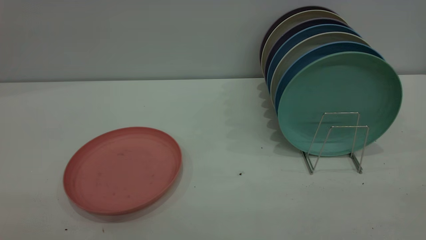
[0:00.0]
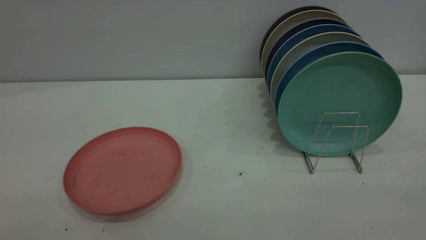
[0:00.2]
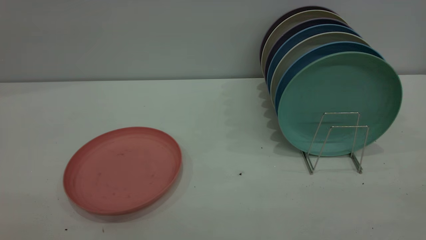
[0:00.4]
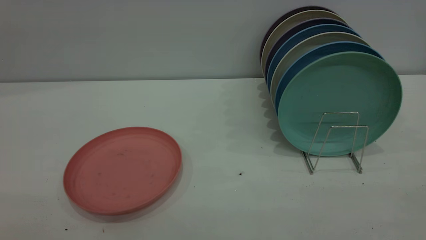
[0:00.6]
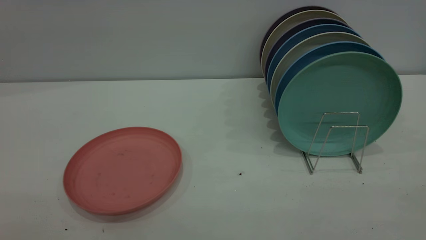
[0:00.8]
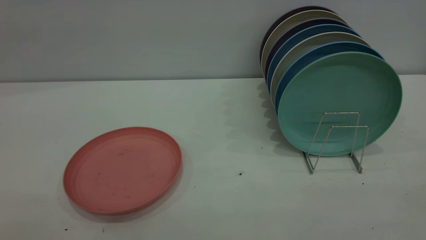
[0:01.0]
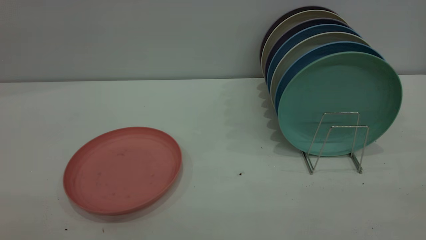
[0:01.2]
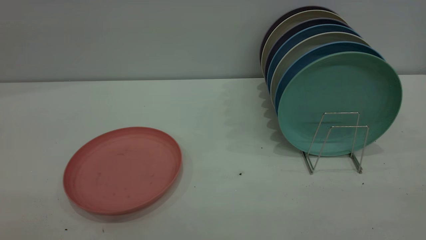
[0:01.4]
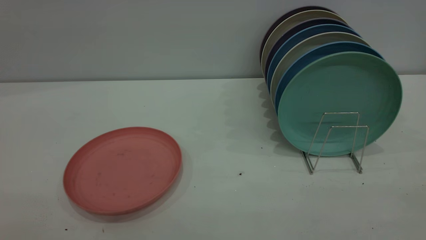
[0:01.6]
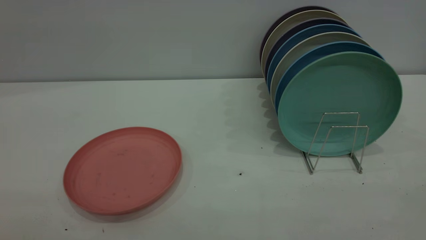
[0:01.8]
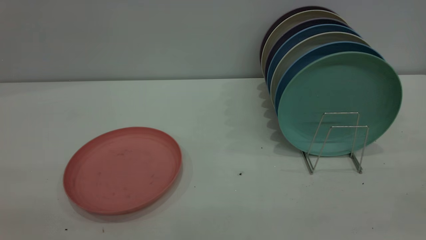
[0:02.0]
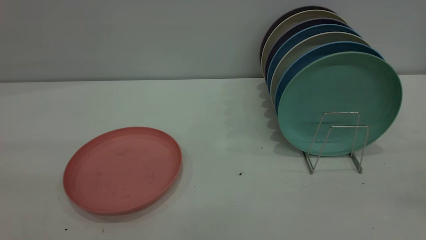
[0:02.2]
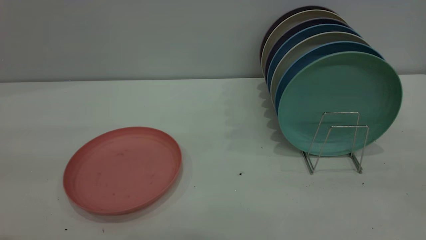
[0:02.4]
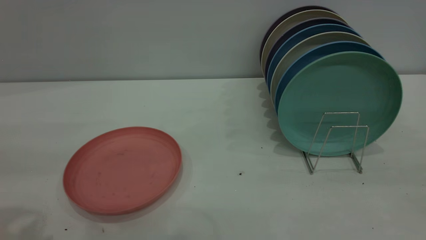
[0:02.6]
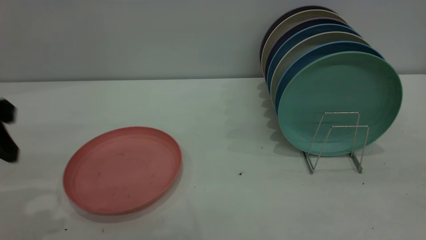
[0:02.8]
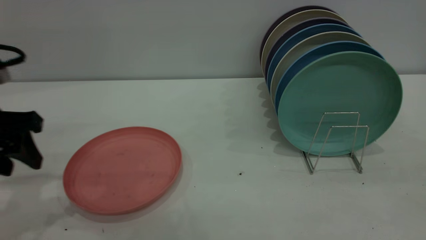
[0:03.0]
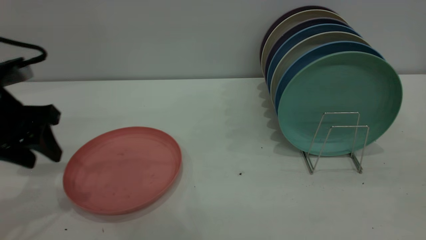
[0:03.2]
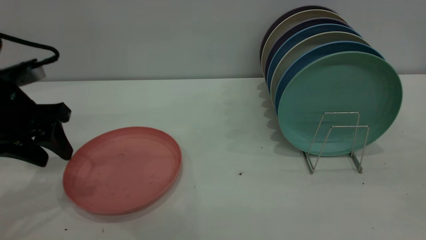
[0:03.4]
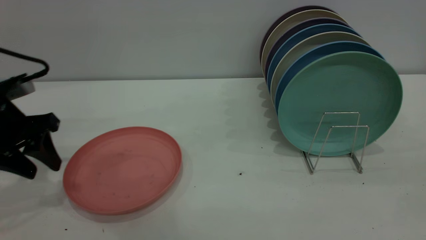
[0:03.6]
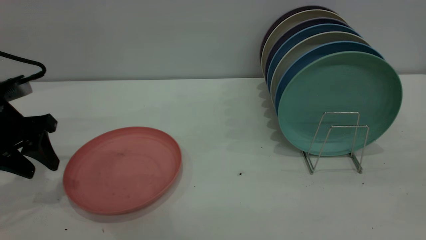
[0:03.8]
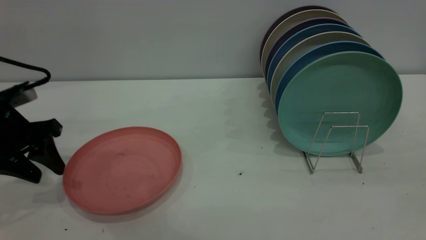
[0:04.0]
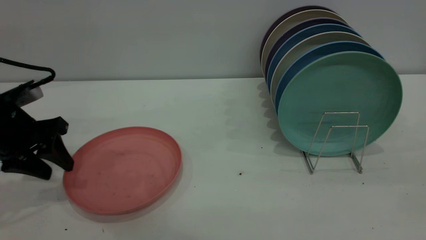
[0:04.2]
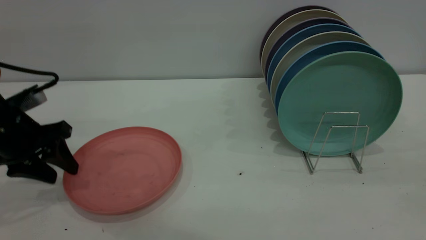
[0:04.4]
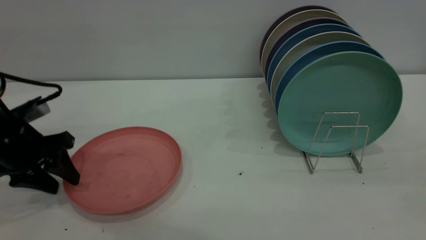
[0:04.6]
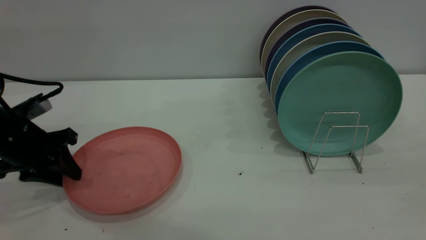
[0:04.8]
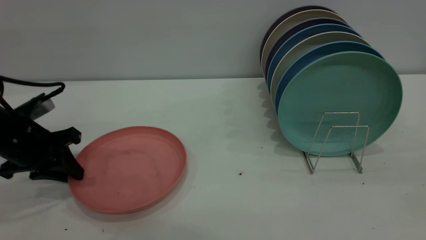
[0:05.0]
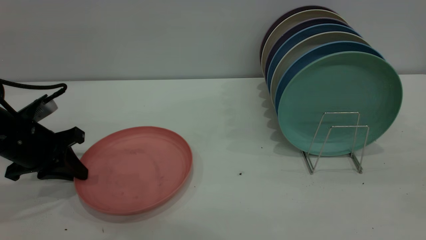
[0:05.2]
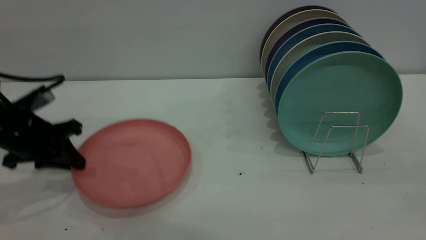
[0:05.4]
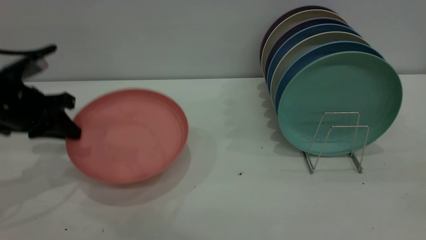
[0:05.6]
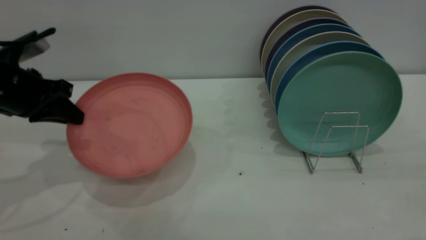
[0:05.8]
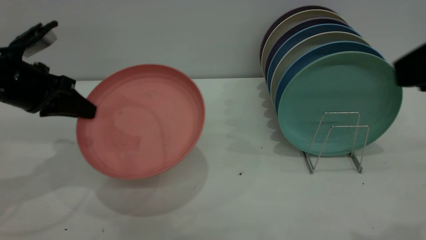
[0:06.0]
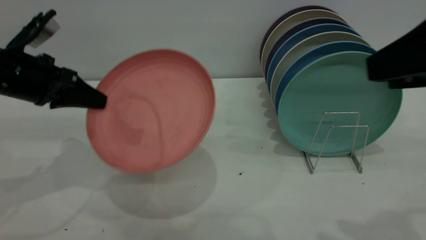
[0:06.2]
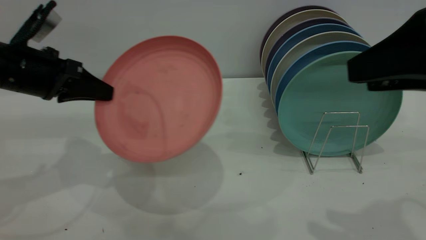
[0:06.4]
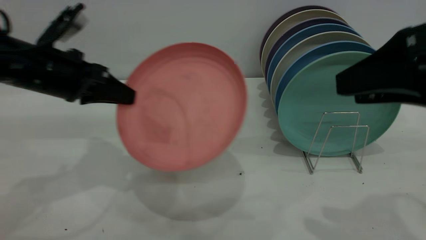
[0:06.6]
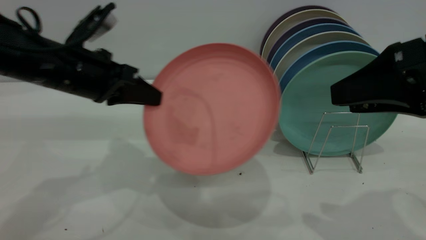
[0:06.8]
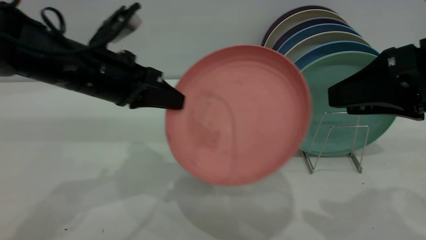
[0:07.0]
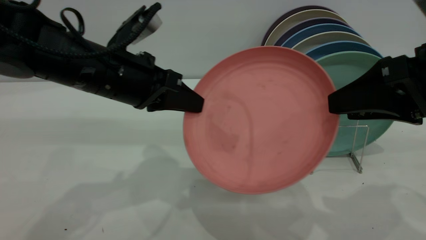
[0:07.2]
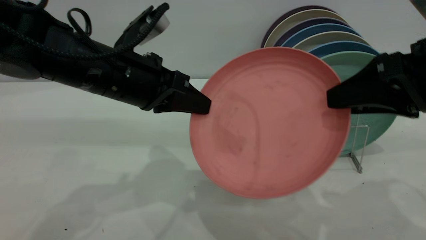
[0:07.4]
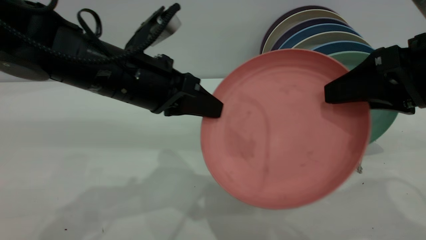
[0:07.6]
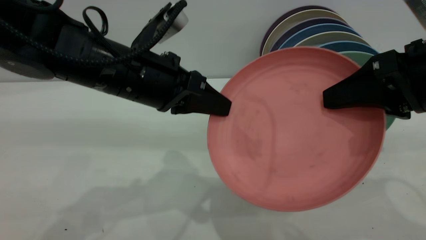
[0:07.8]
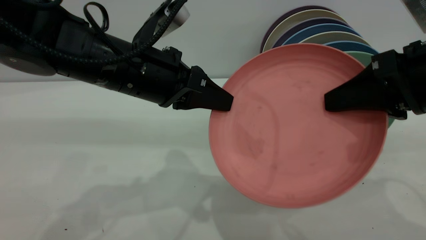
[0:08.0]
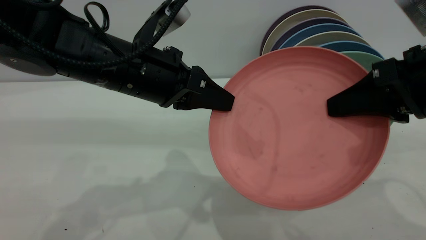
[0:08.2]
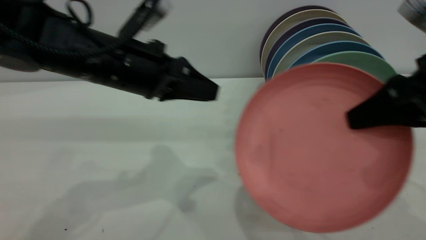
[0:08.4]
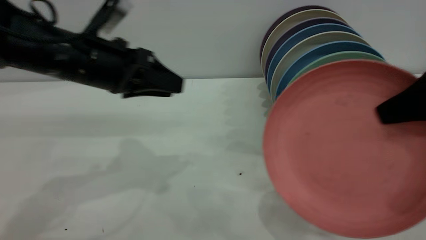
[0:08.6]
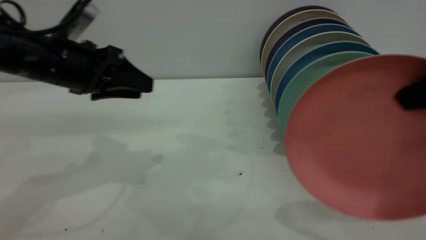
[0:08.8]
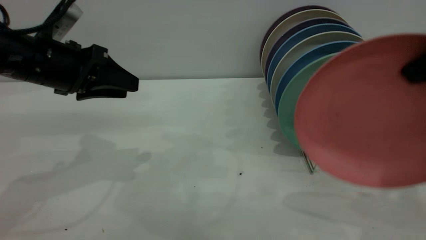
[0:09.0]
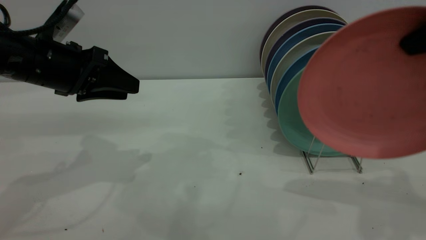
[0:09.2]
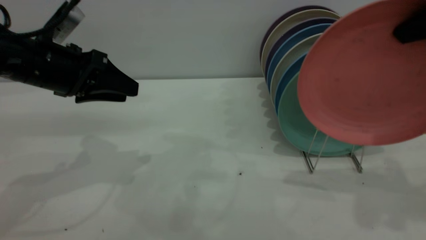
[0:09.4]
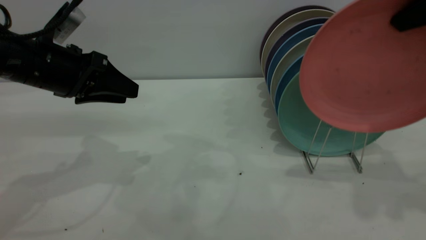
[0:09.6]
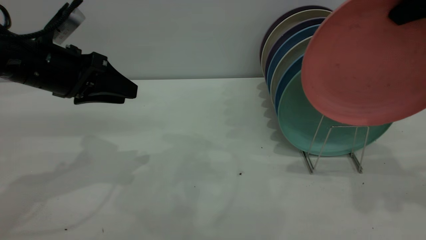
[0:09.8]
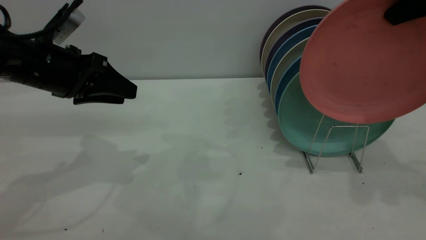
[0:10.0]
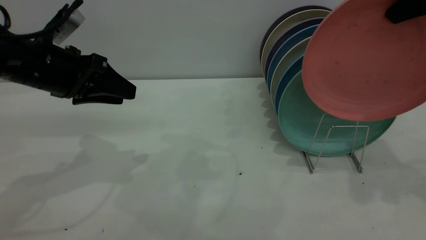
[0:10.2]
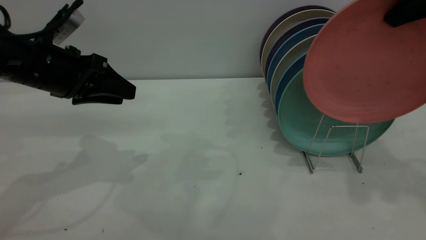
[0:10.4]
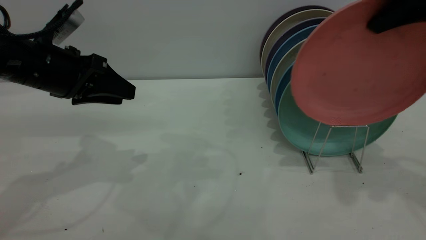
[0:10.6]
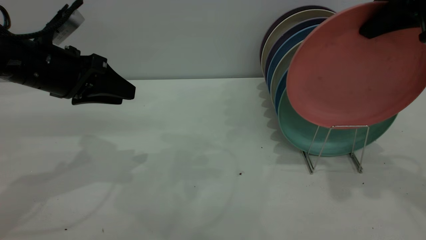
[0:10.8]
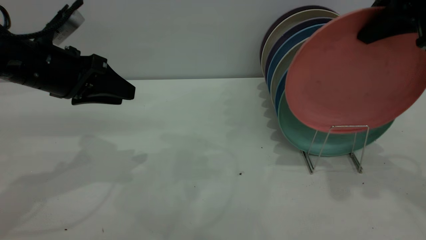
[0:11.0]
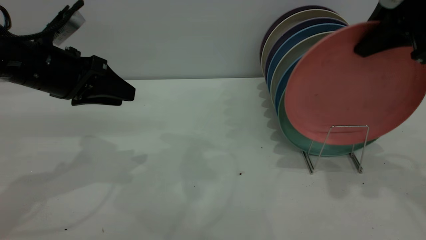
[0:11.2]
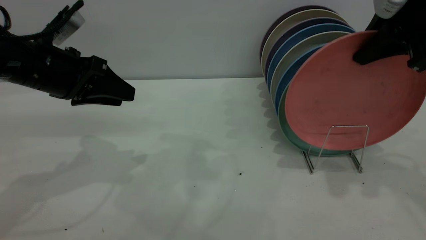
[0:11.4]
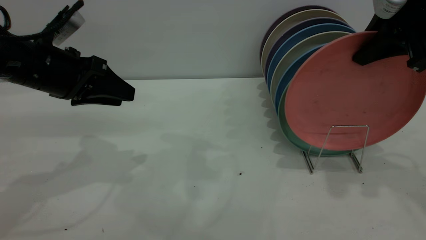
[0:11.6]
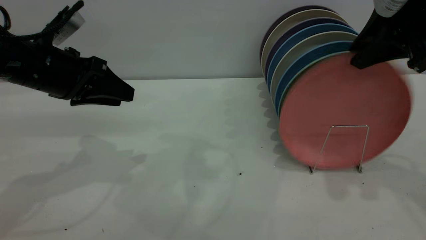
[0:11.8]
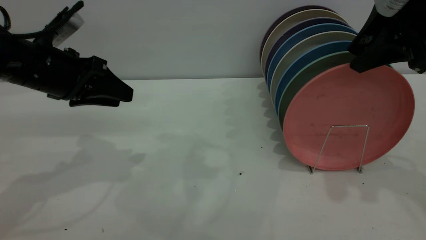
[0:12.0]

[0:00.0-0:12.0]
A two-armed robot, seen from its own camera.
Task of the whole recording: put the plate on the plate rack.
Step, 0:00.0 to 0:05.8: Pick up the plate with the left gripper.
Step, 0:06.0 to 0:07.8: Pass the plate from the left gripper to the right gripper.
Step, 0:08.2 to 0:11.8: Place the plate on the shelf.
0:00.0 to 0:01.6: Both grippers stay put.
0:01.6 to 0:03.0: The left gripper shifts about 35 cm forward and downward.
0:03.0 to 0:04.4: The left gripper heads downward, covering approximately 5 cm.
0:04.4 to 0:06.0: The left gripper is displaced upward by roughly 5 cm, and closes.
0:06.0 to 0:07.6: The right gripper goes about 10 cm downward and forward. The left gripper travels to the right by about 15 cm.
0:07.6 to 0:09.0: The left gripper shifts about 15 cm to the left, and opens up. Meanwhile the right gripper travels upward by some 5 cm, and closes.
0:09.0 to 0:10.4: The right gripper moves forward, approximately 10 cm.
0:10.4 to 0:12.0: The right gripper shifts by some 5 cm, and opens up.

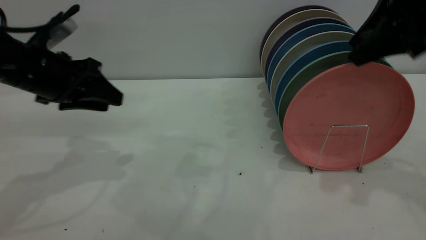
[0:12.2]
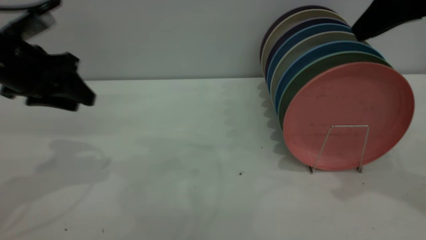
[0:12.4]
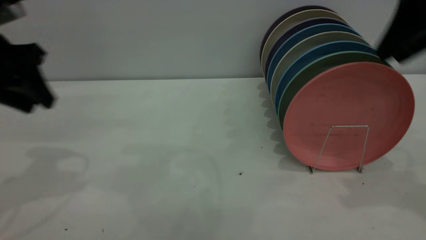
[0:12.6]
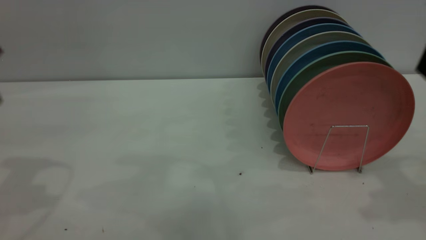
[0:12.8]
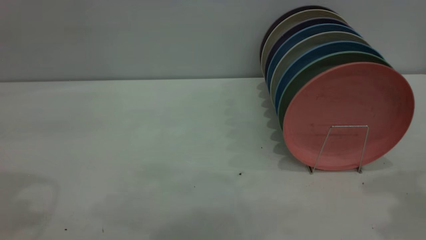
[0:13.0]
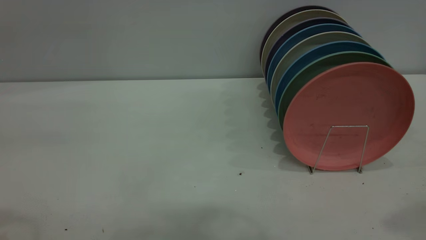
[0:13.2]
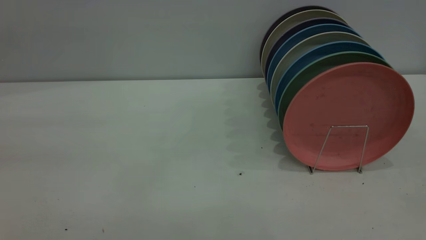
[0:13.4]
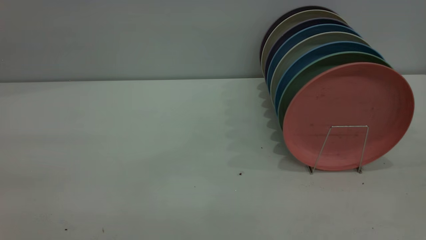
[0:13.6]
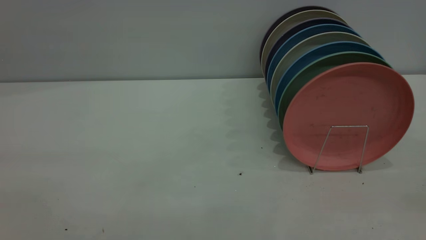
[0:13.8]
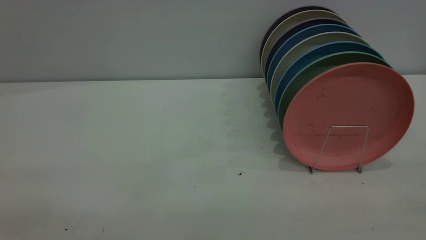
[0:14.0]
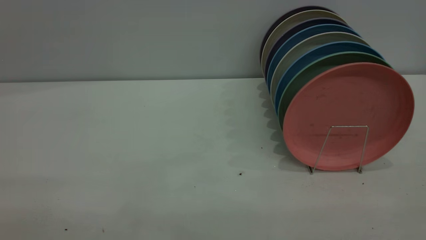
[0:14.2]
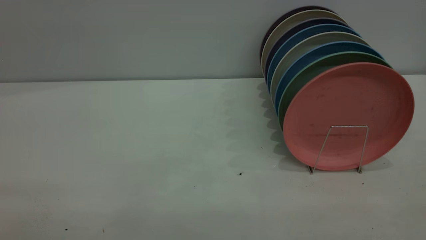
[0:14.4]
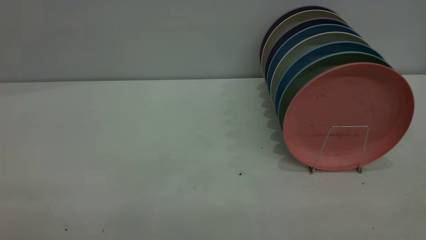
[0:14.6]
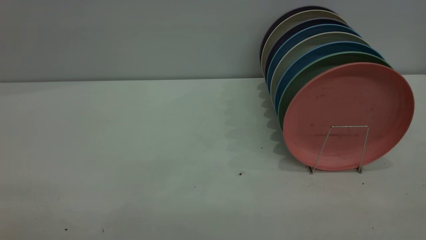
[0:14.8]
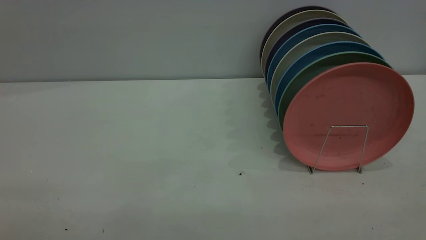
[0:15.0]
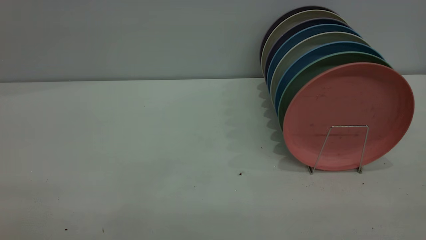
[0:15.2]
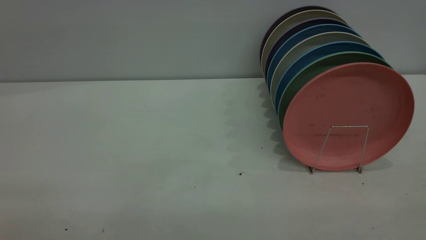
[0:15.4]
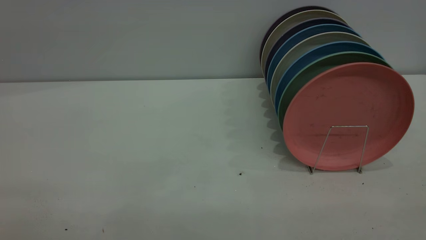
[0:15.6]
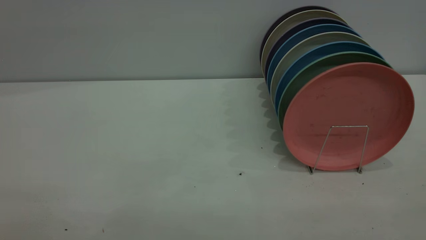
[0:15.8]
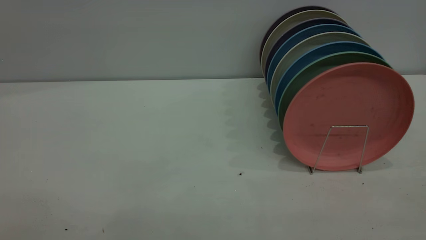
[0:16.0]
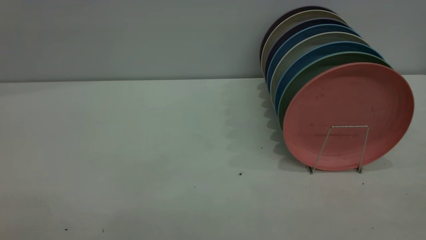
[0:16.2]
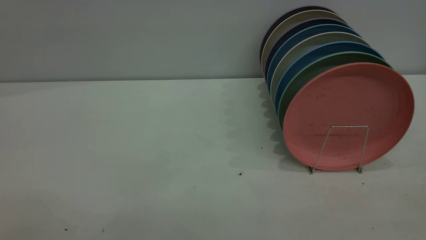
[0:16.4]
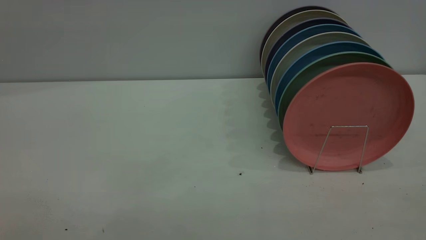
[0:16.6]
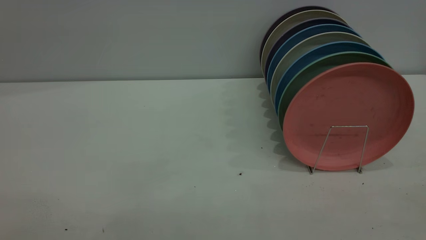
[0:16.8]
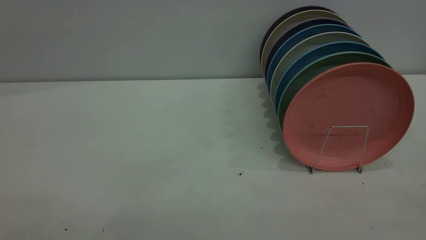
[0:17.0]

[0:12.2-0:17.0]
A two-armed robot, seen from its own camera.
Task of the whole recording: put the plate on the plate rack.
0:12.2 to 0:13.8: The left gripper travels backward and upward by approximately 40 cm, while the right gripper shifts roughly 30 cm backward.
